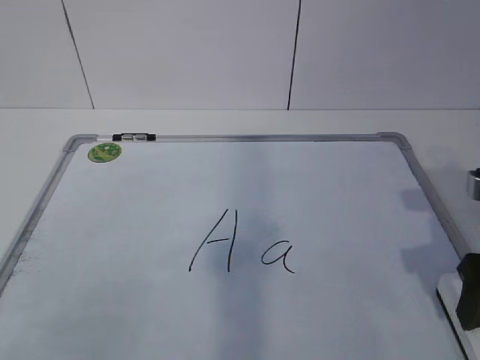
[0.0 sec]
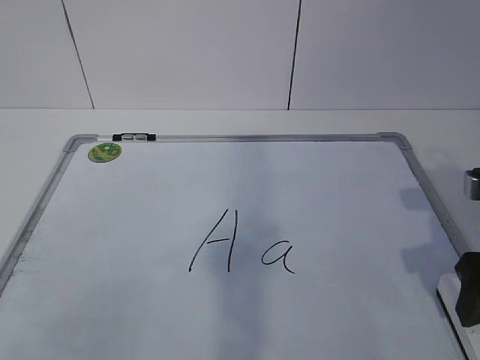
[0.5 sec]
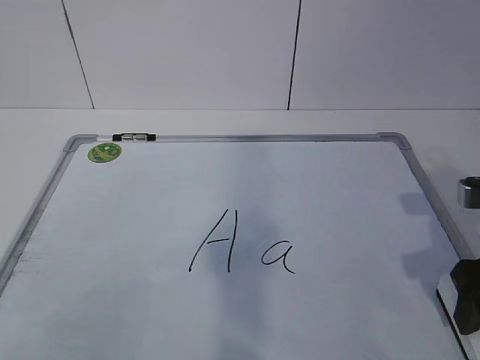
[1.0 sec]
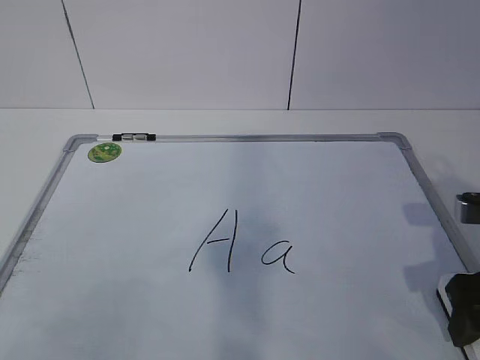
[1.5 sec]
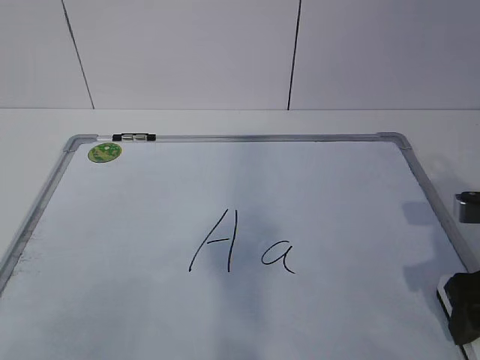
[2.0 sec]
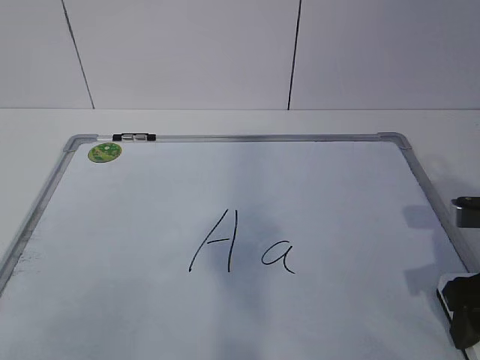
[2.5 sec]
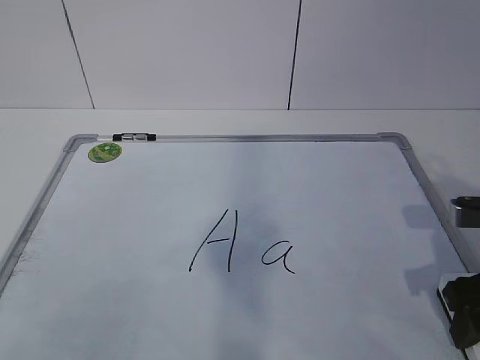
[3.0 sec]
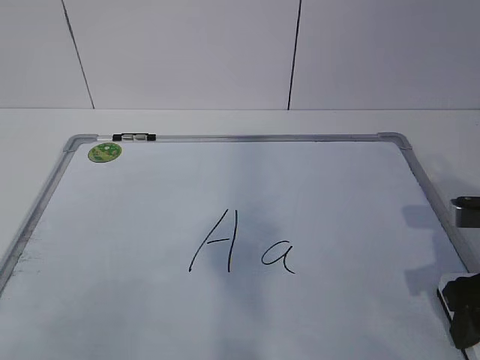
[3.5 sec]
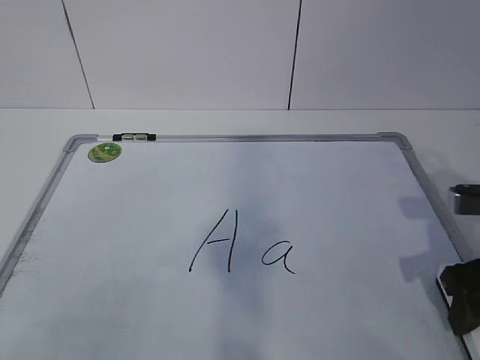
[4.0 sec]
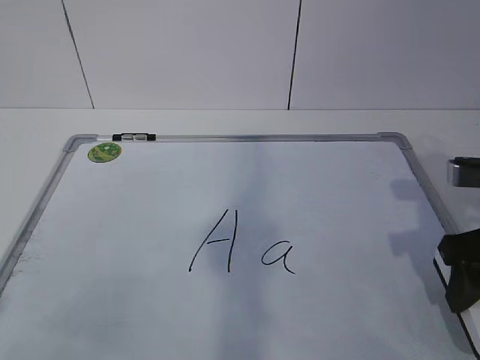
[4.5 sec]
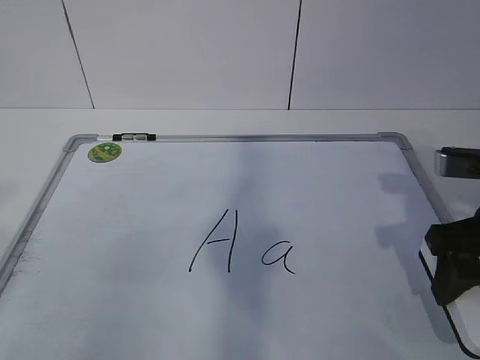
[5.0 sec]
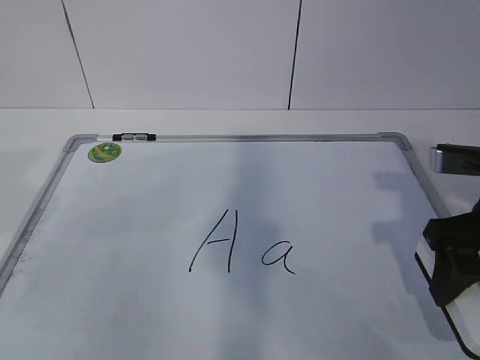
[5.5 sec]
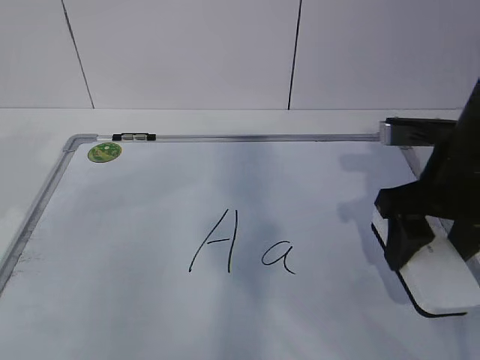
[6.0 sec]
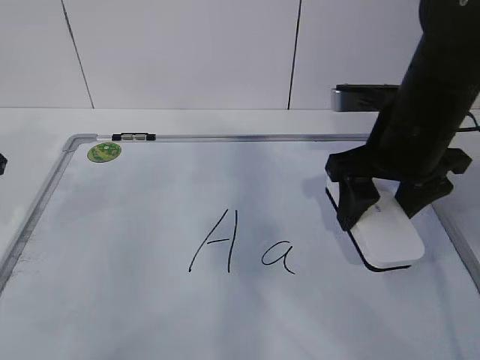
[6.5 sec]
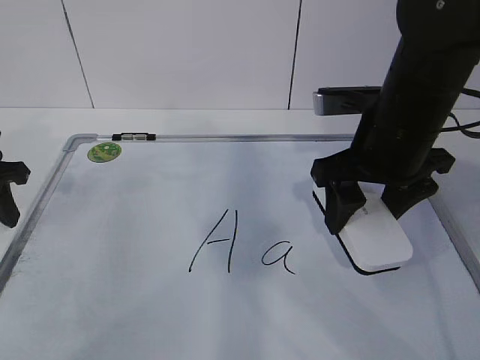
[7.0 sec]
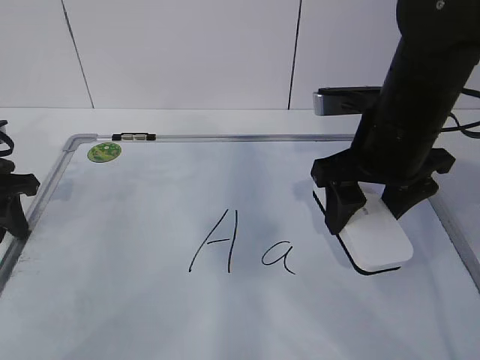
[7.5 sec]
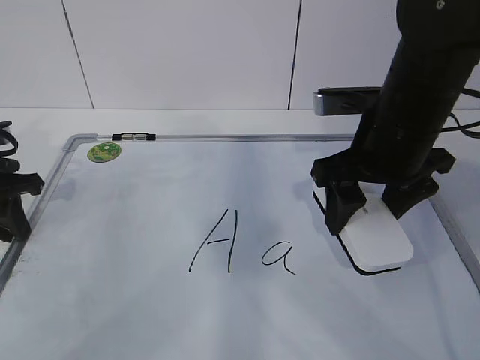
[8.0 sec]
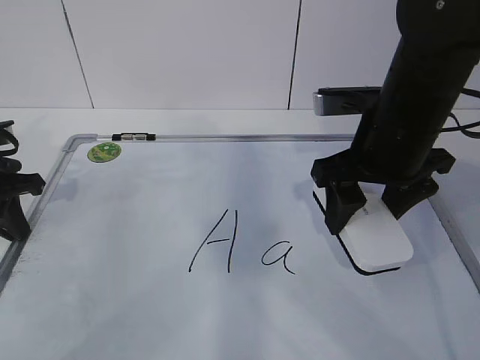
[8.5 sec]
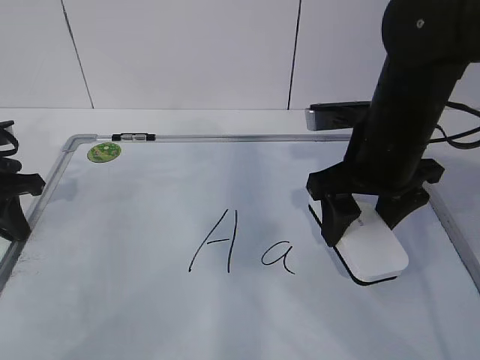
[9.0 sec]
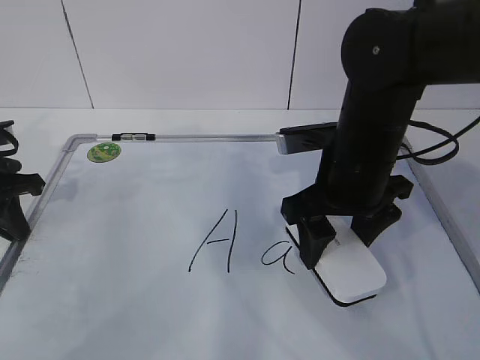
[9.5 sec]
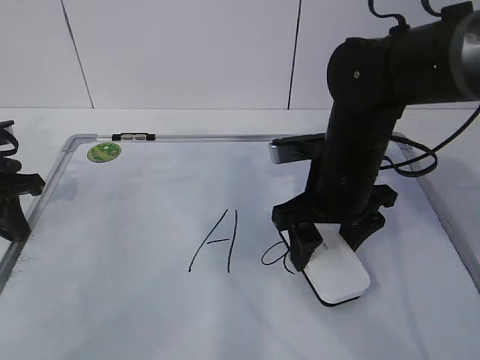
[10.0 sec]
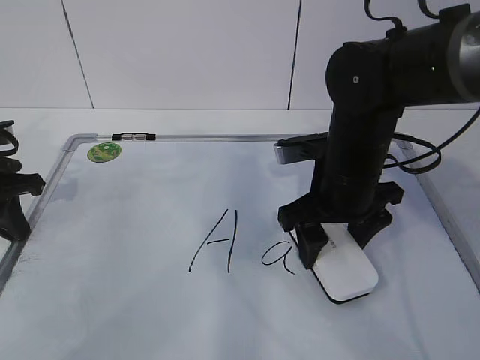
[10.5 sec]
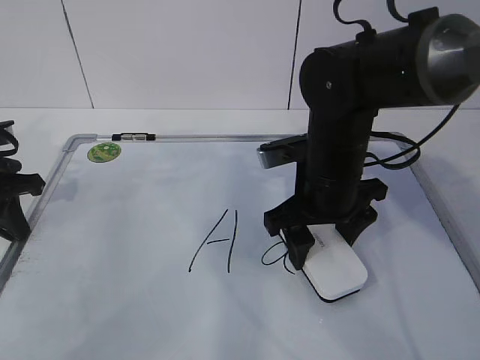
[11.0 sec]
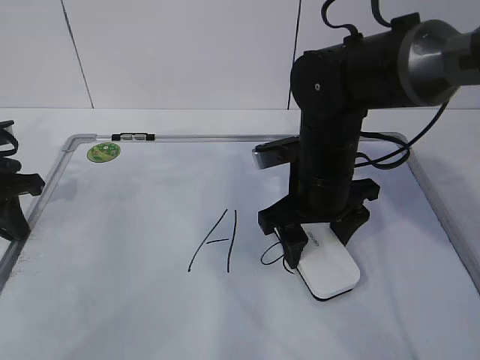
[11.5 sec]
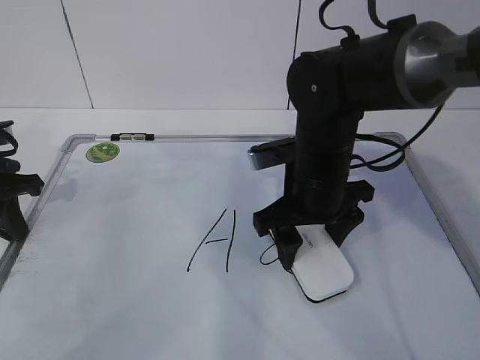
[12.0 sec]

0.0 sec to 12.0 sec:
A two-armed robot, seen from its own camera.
Task of the whole recording: pick up the eraser on the blackboard and erase the letter "a".
Step, 1.5 sec to 5.5 sec: Hold the drawing board steady with your left hand.
0.0 sec to 2.0 sec: The grippers move only a little.
2.0 sec to 4.0 sec: The right gripper closes up.
4.0 sec to 6.0 sec: The right gripper moves to the left, upward and forward, approximately 10 cm.
6.0 sec to 8.0 sec: The right gripper is displaced to the left by about 5 cm, while the left gripper is displaced downward and forward by about 15 cm.
8.0 sec to 10.0 sec: The left gripper closes; the right gripper moves downward, about 5 cm.
10.0 sec to 12.0 sec: The grippers move only a little.

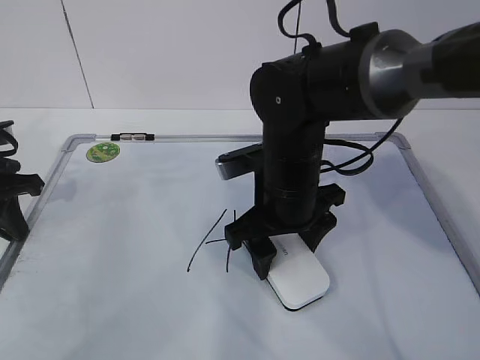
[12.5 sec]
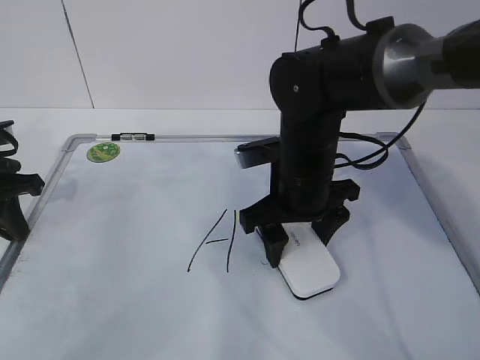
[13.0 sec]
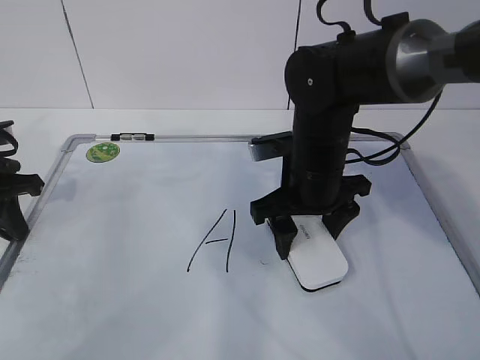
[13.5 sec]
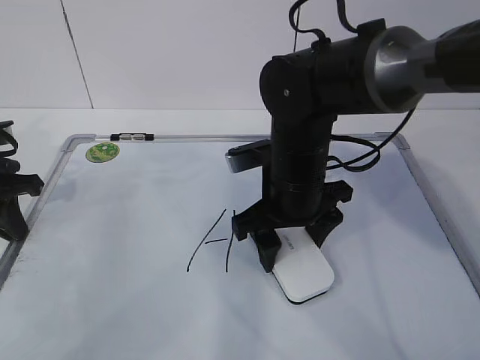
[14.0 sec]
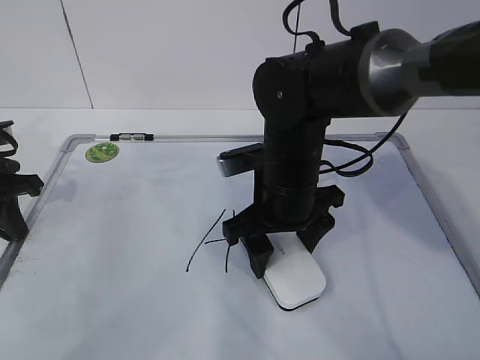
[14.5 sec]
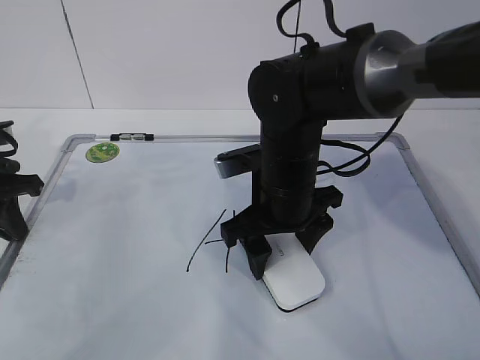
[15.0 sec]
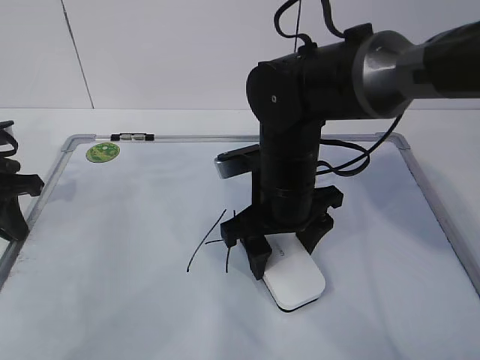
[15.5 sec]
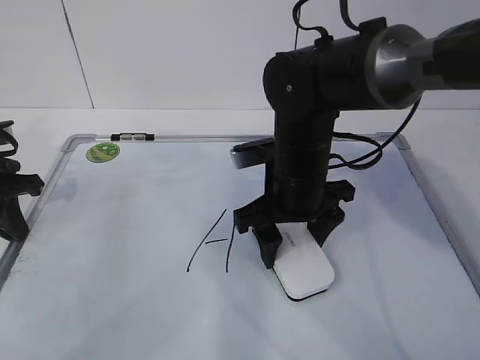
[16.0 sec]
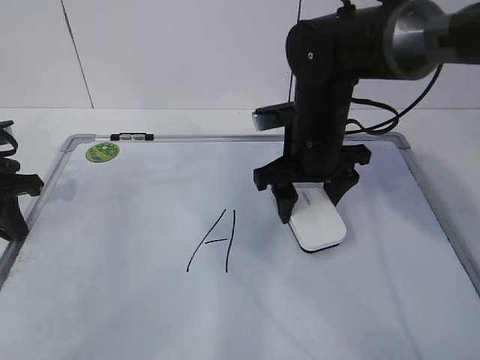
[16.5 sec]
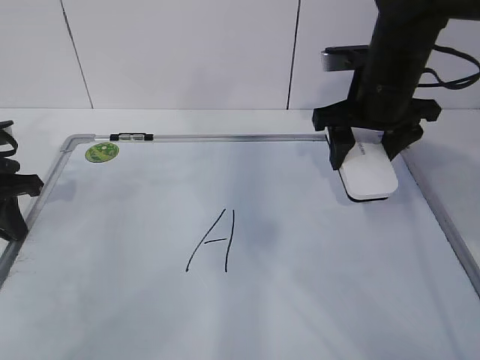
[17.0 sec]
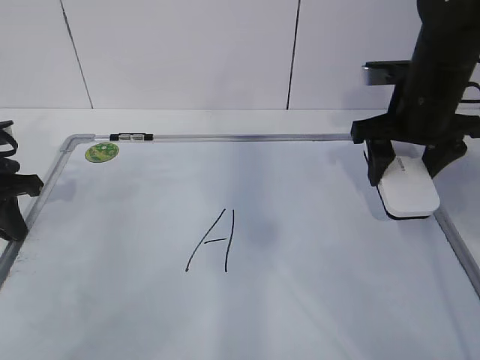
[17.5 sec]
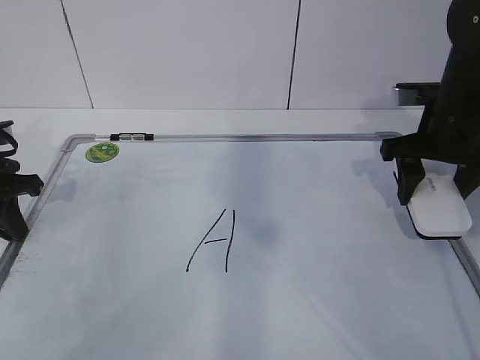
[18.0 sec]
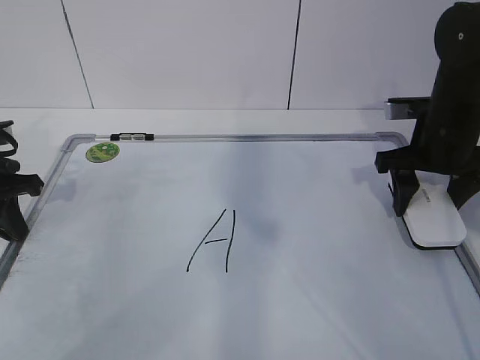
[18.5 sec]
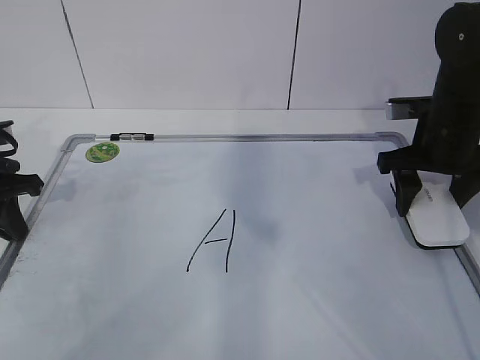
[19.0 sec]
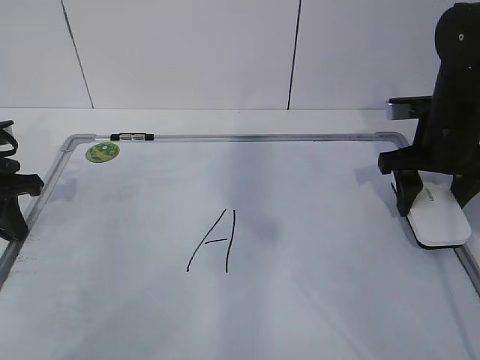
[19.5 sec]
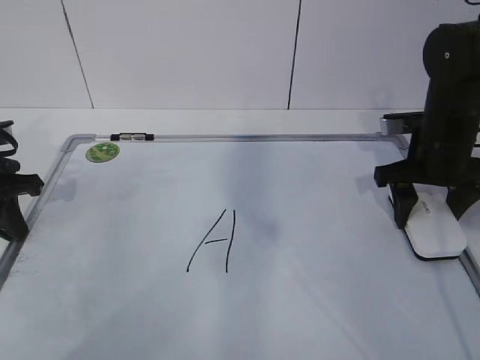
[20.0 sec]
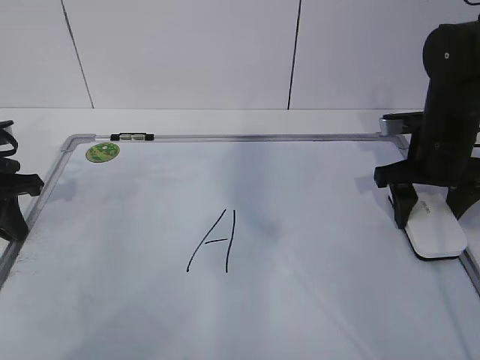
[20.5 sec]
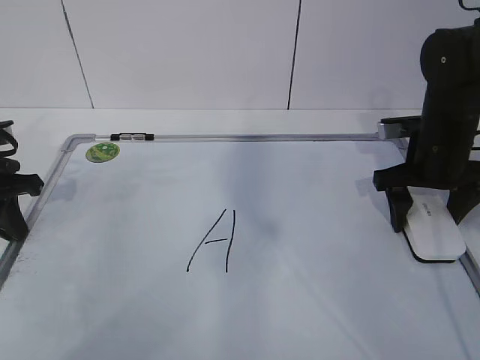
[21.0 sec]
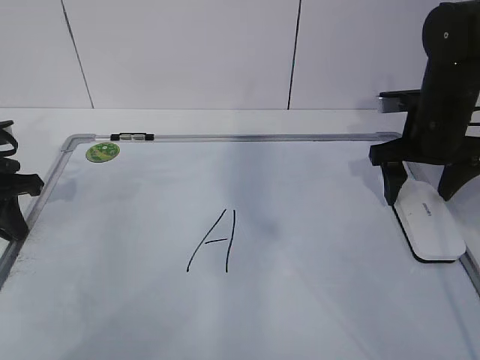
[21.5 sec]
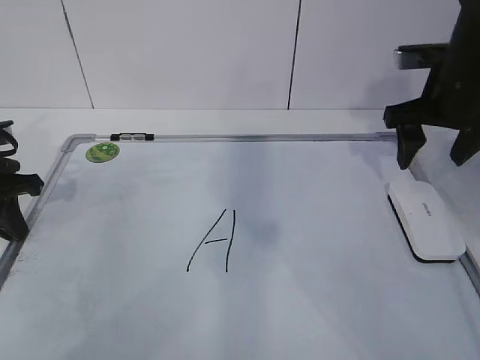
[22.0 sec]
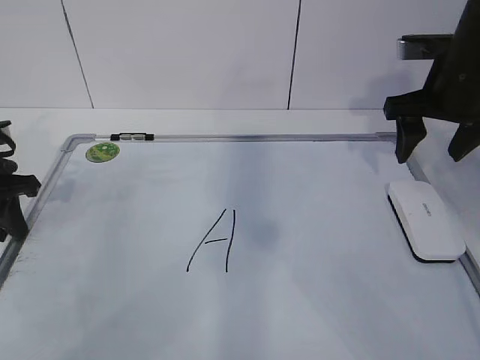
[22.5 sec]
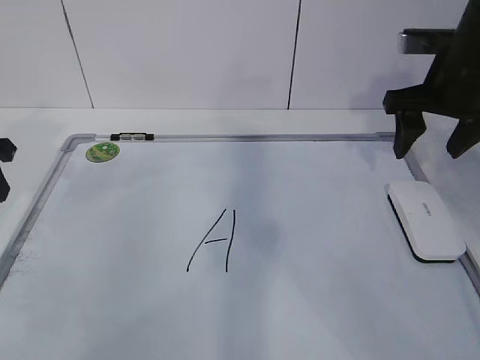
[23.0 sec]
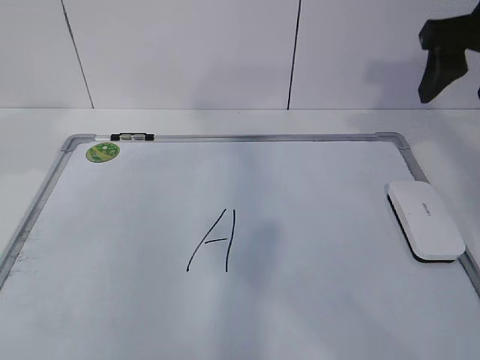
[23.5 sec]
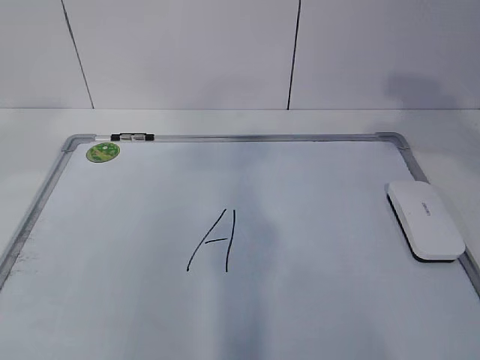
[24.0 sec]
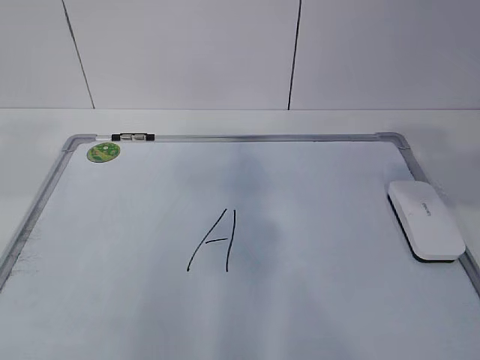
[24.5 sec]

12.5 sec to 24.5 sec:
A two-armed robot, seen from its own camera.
Task of the whole recording: pick up the eraser on the blackboard and erase the letter "a".
Step, 12.5 sec to 16.0 sec: Put down the eraser with your right hand.
12.5 sec to 14.5 sec: The grippers move only a little.
14.5 sec to 16.5 sec: The right gripper travels forward by some 5 cm.
16.5 sec to 18.5 sec: The right gripper moves to the right, roughly 15 cm.
18.5 sec to 20.5 sec: There are only small adjustments of the grippers.
20.5 sec to 22.5 sec: The right gripper heads upward, covering some 10 cm, and opens, then closes again.
22.5 sec to 24.5 sec: The left gripper is displaced upward and backward by roughly 35 cm, and opens its fingers; the right gripper heads backward and upward, covering approximately 25 cm.

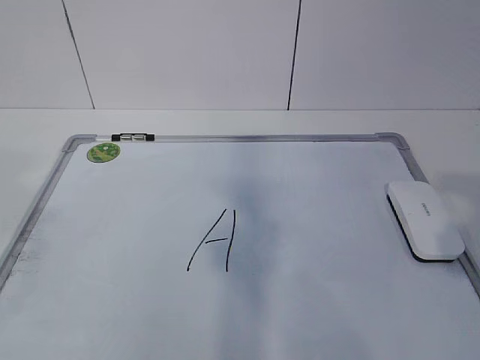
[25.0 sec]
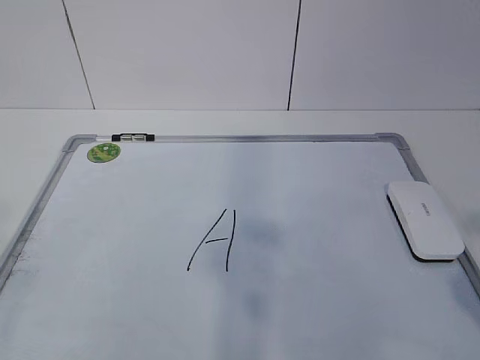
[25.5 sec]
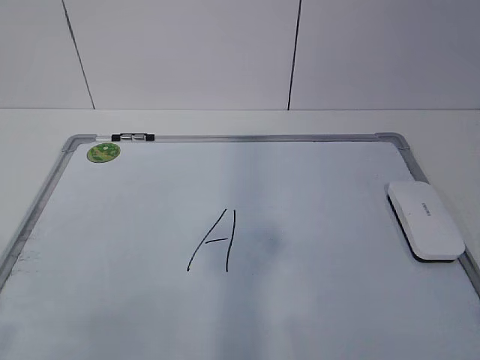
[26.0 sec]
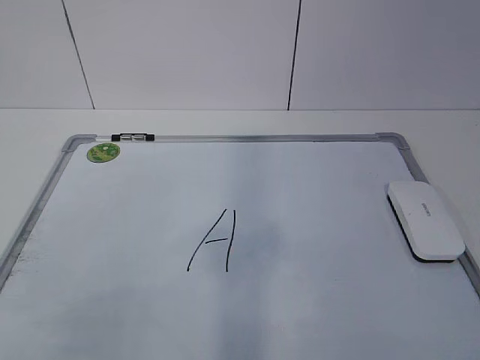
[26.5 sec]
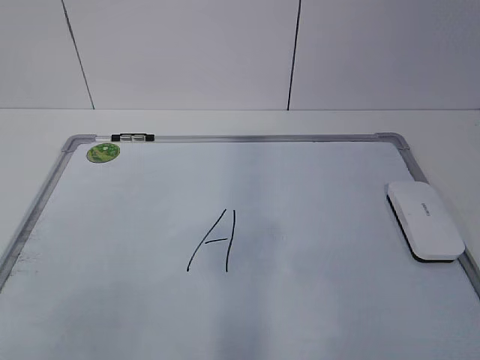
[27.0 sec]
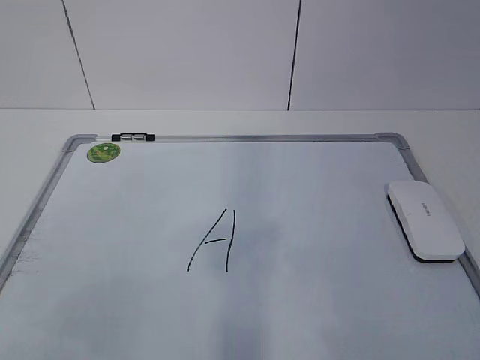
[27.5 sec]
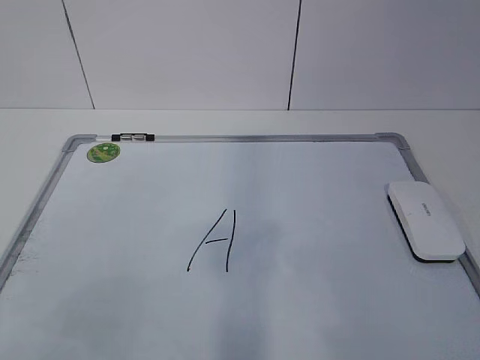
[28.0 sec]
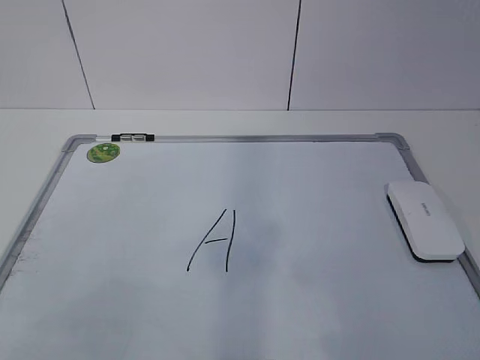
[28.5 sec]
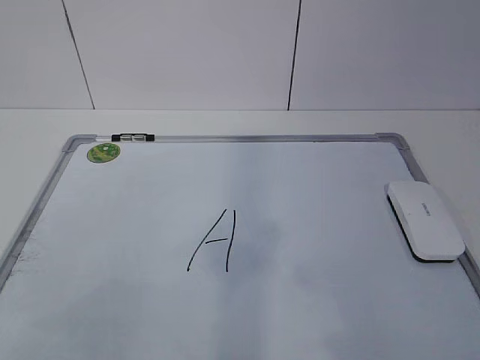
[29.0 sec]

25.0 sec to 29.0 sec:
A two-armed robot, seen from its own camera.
Task of the whole recording: pick up the eraser on the blackboard and erase the letter "a".
25.0 sec to 27.0 sec: The left gripper moves downward, some 15 cm.
